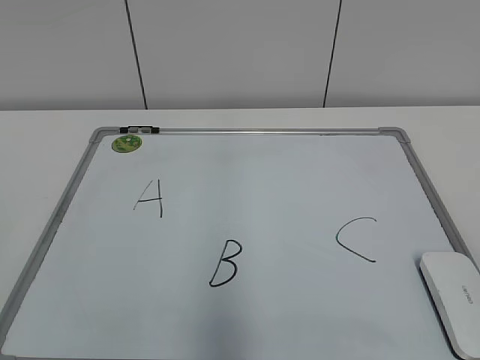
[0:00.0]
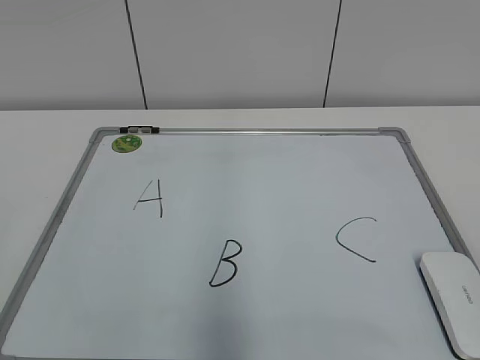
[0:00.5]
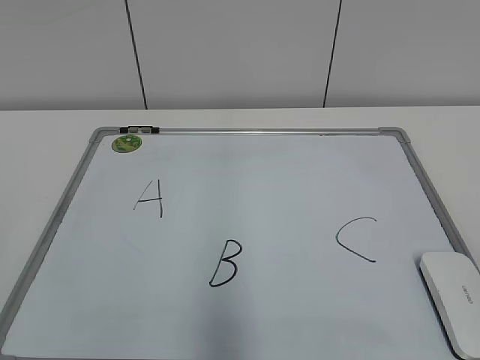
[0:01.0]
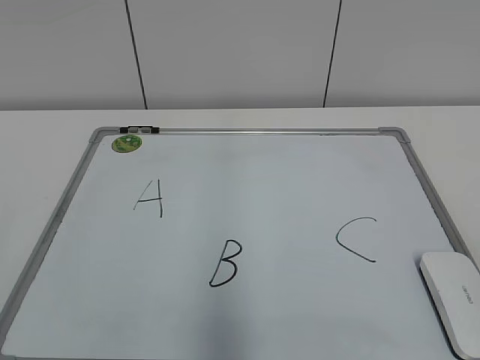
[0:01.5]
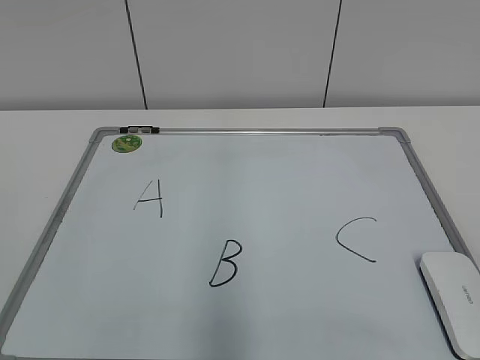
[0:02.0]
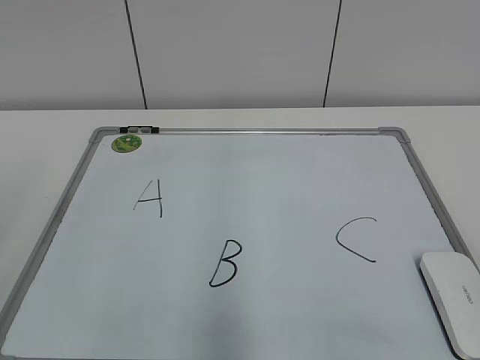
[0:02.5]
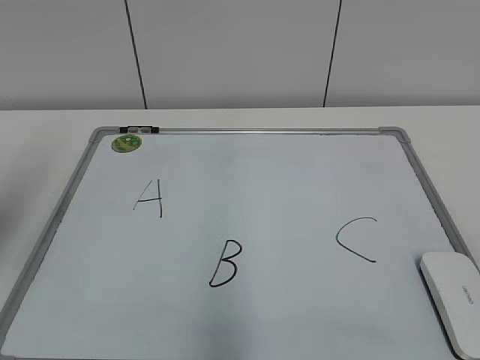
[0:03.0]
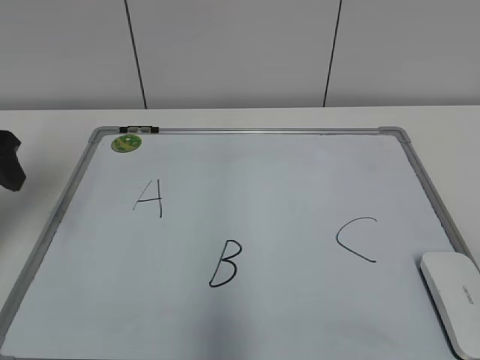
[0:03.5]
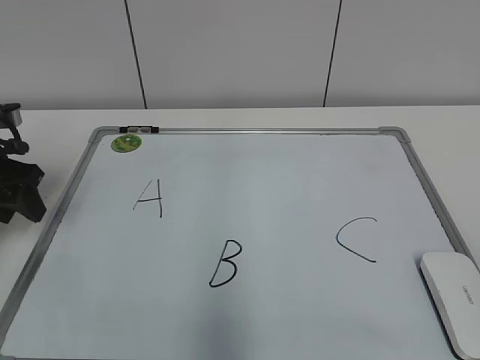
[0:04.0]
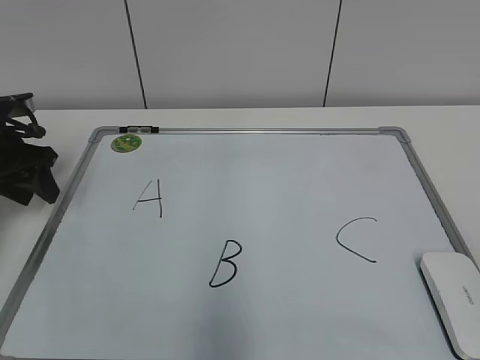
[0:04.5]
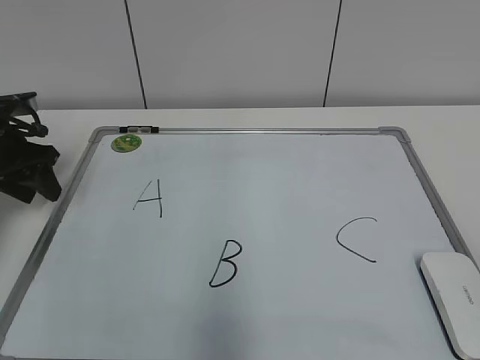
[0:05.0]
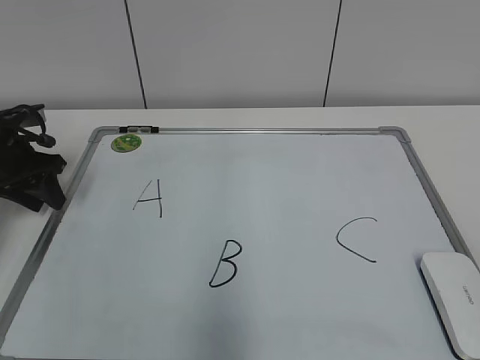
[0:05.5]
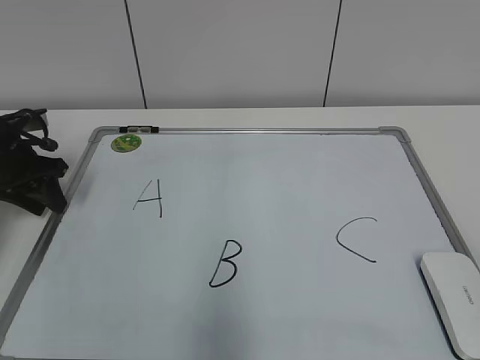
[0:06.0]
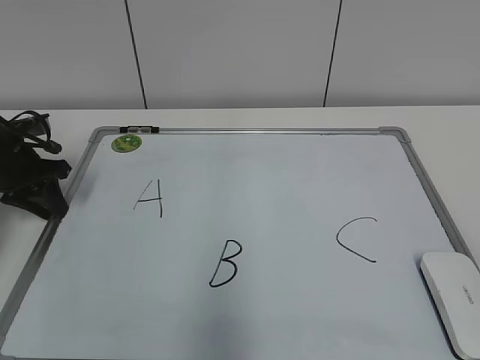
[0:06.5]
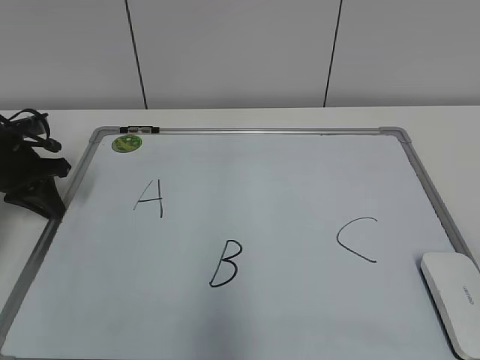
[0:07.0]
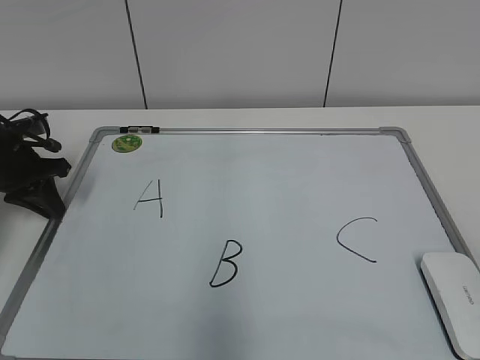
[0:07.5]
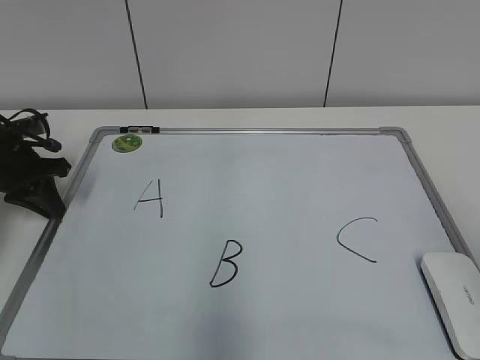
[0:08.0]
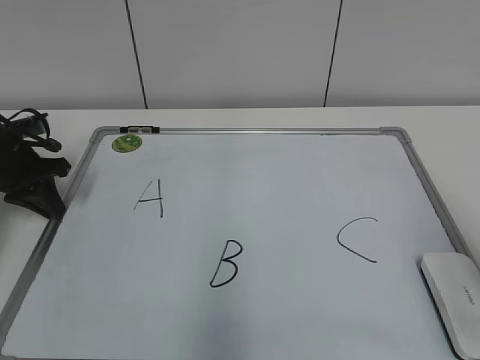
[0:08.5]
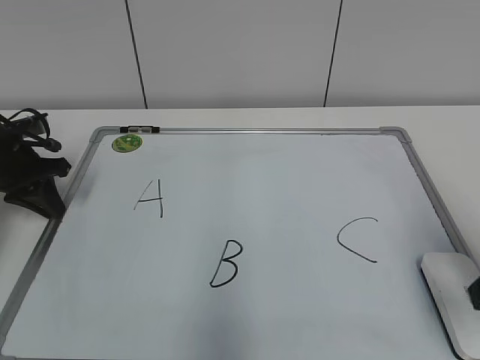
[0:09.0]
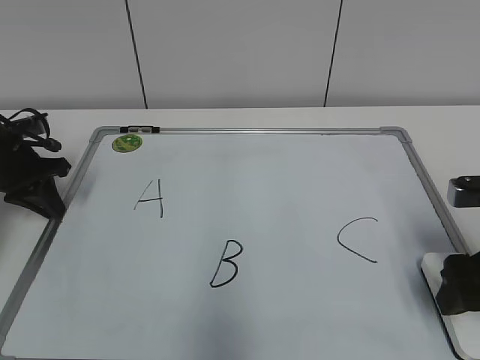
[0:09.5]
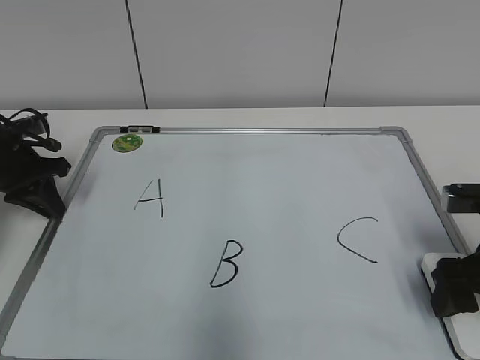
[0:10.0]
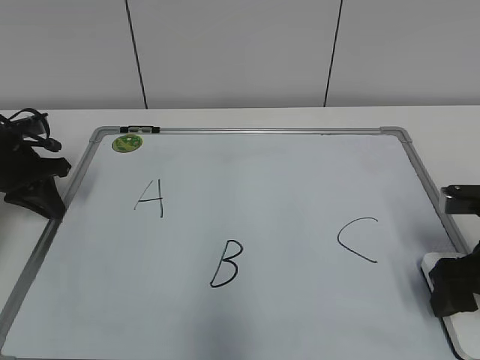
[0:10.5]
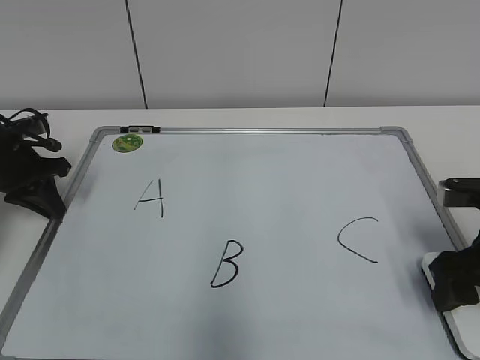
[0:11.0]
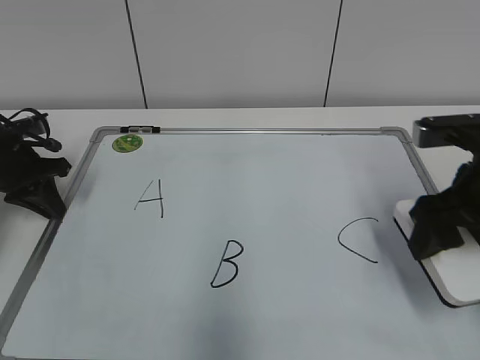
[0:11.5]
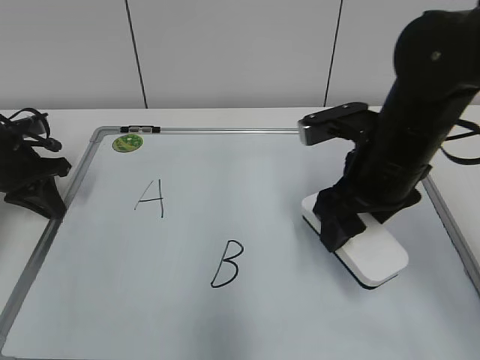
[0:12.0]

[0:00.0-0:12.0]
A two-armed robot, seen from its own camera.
Task of the whole recording: pick up the eraser on the blackboard and erase the letter "B".
Step, 0:00.0 to 0:07.0: Hold the drawing board steady with your left hand.
Step, 0:07.5 to 0:10.5: Grab the eraser with your right hand.
0:02.0 to 0:04.0: The left gripper moves forward, some 35 cm.
0:04.0 to 0:06.0: The left gripper heads forward, covering approximately 5 cm.
0:06.0 to 0:08.0: The left gripper closes up.
0:08.0 to 0:10.0: The right gripper is displaced forward and downward by about 25 cm.
0:10.0 to 0:12.0: The right gripper is displaced to the left, upward and forward by some 15 cm.

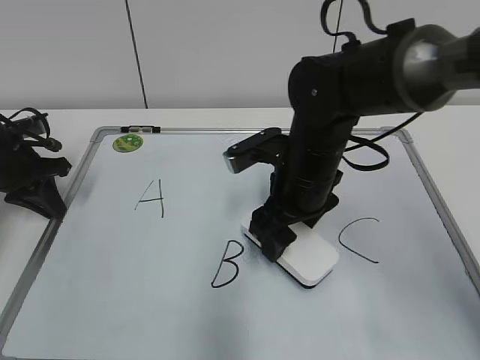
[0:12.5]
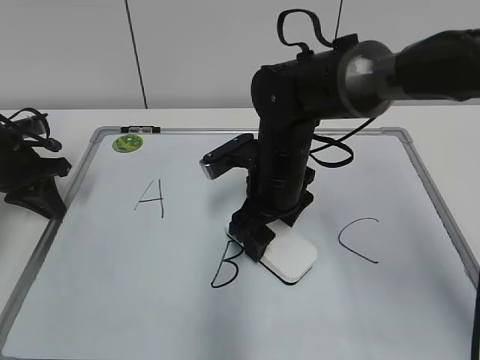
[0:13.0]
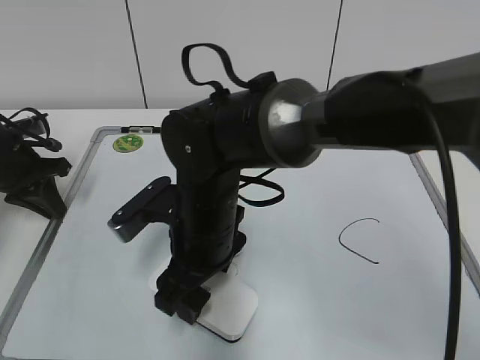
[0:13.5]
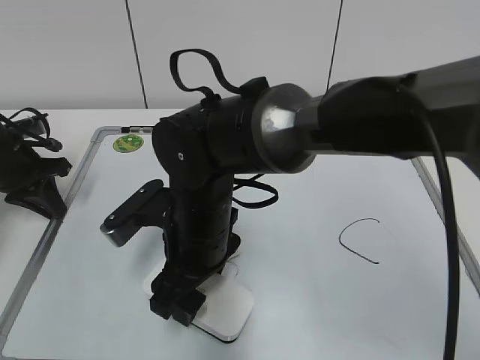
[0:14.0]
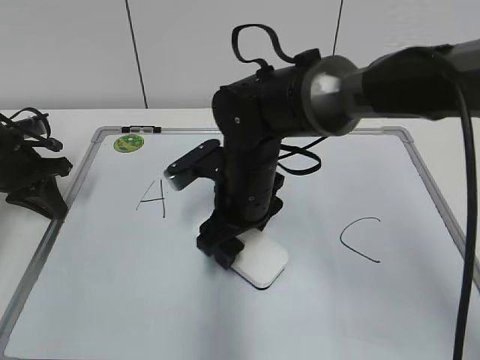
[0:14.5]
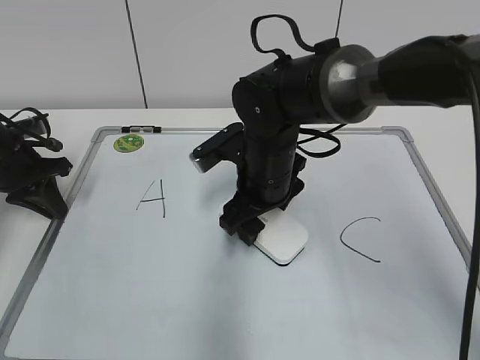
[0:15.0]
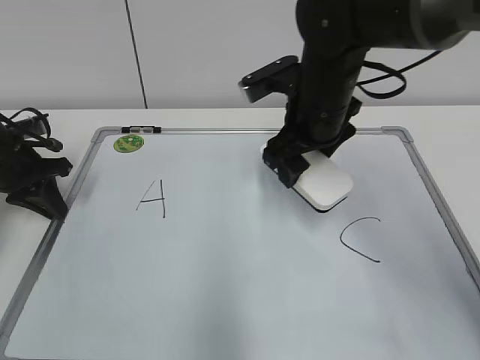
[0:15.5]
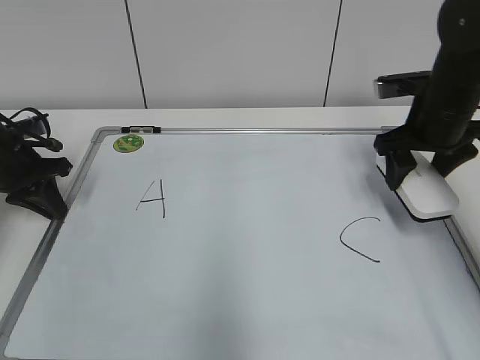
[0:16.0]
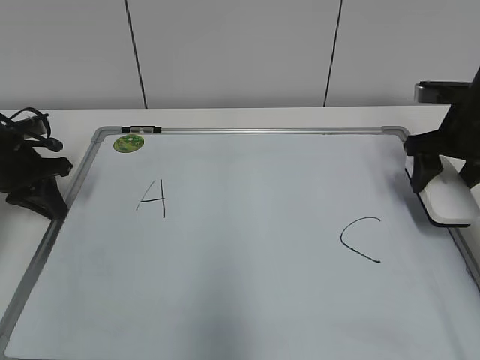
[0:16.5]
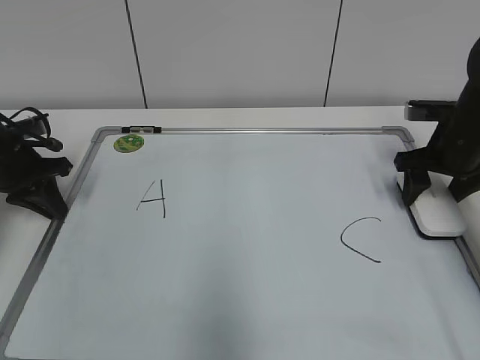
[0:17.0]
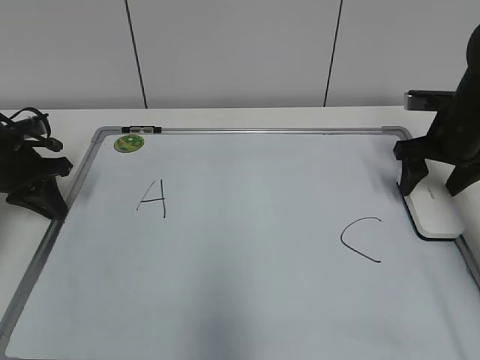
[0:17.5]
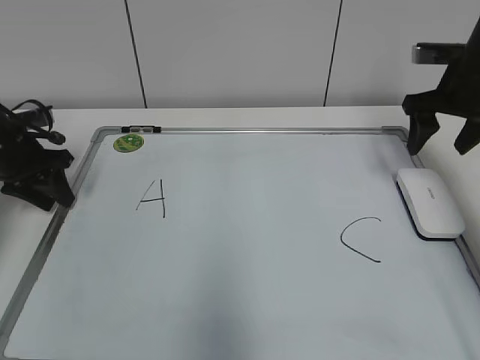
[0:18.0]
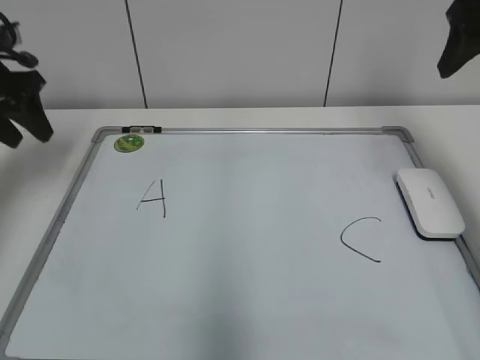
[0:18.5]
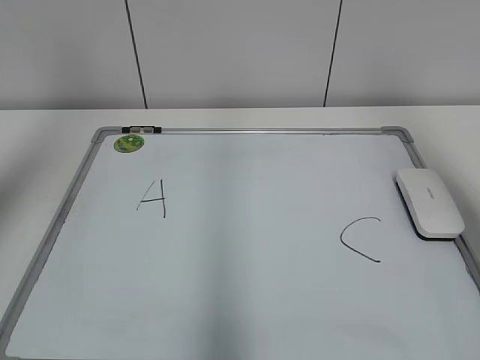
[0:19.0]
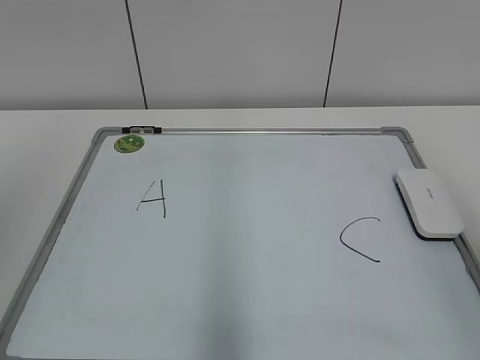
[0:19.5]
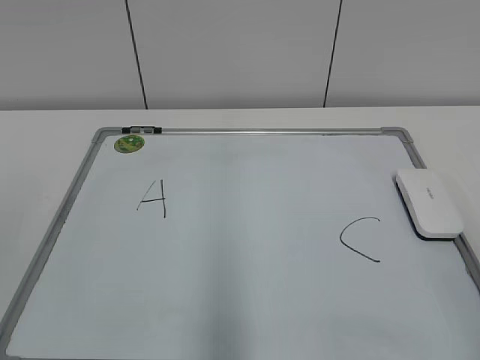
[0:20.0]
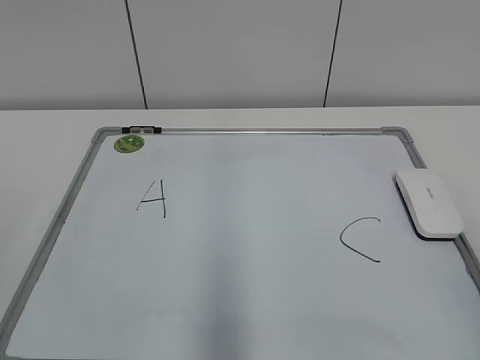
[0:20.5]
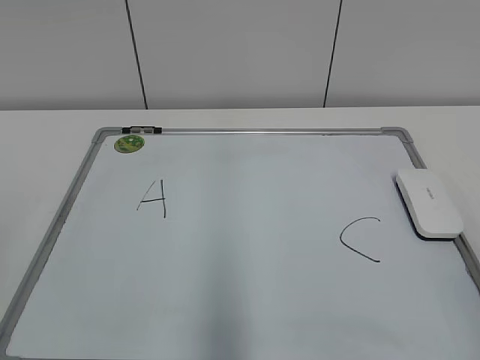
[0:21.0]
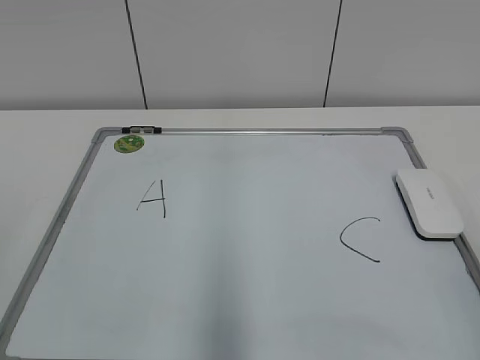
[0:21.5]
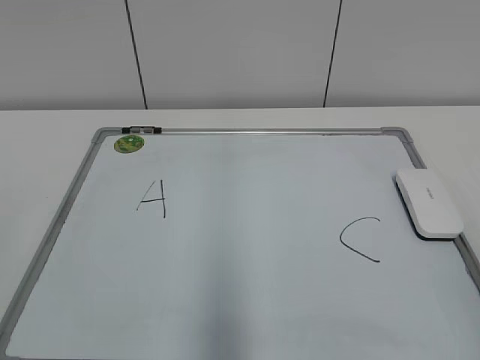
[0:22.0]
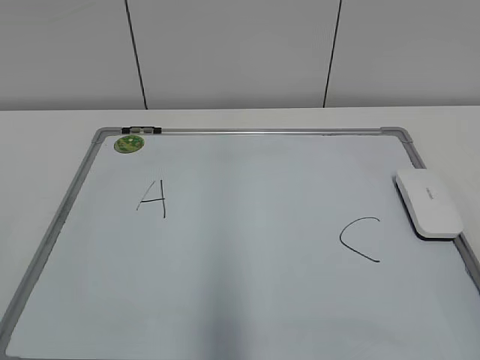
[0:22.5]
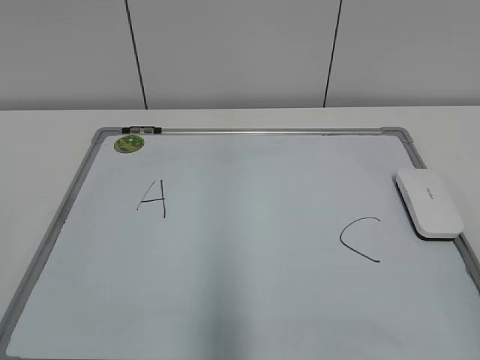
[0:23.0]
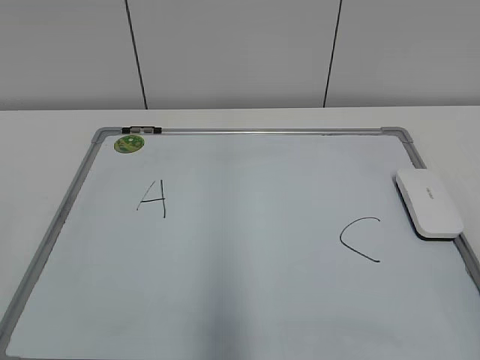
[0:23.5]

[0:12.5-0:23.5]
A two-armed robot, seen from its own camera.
Task of the whole recording: pick up the eraser on the blackboard and erase the letter "B".
Step, 0:12.5 to 0:14.5: Erase the letter B with your right hand.
Step, 0:15.5 to 0:17.0: Put down the eraser with your right hand.
0:12.5 to 0:14.5: The right gripper shifts about 5 cm to the left.
0:14.5 to 0:16.0: The right gripper is displaced to the right by roughly 25 cm.
0:16.0 to 0:18.0: The right gripper moves about 5 cm, while the left gripper opens up.
0:18.0 to 0:20.0: The right gripper travels backward by approximately 40 cm. The left gripper heads backward and upward, covering approximately 40 cm.

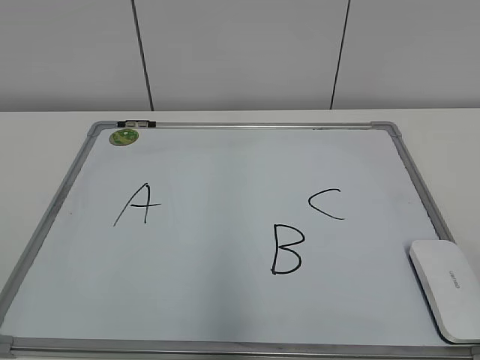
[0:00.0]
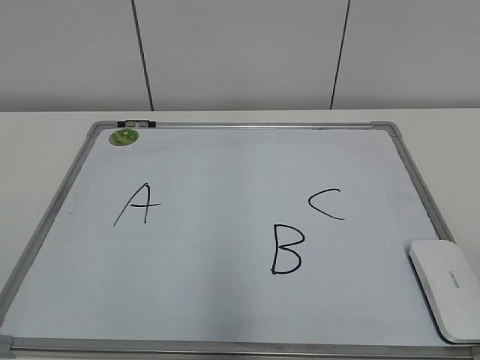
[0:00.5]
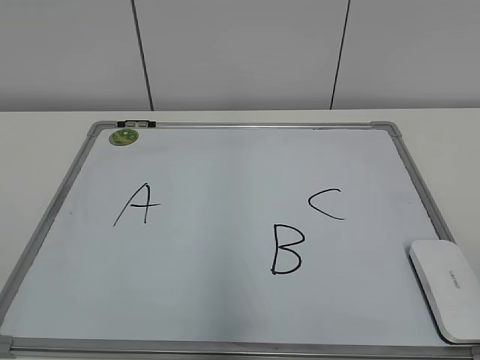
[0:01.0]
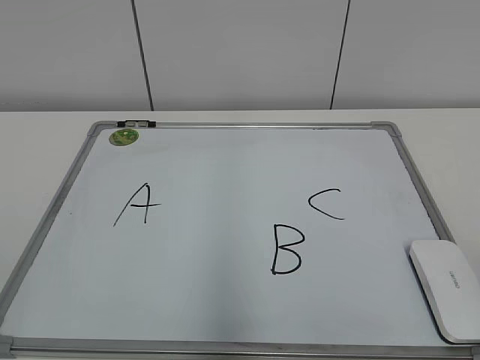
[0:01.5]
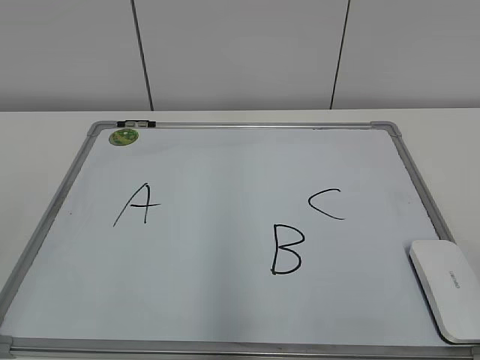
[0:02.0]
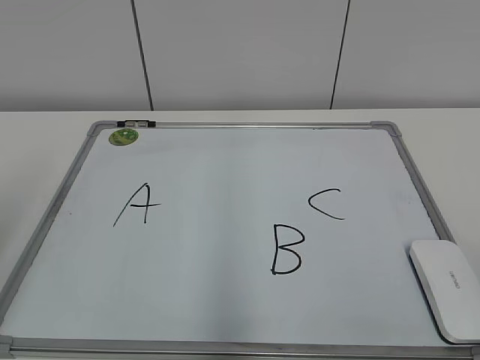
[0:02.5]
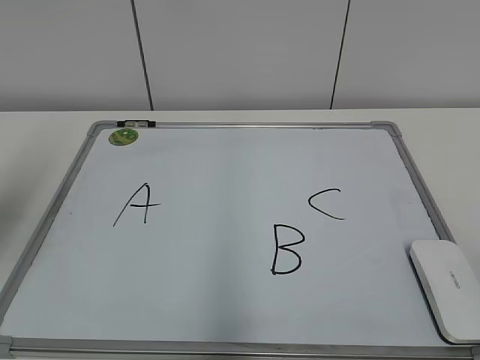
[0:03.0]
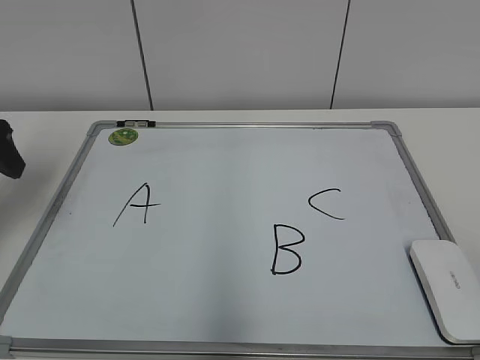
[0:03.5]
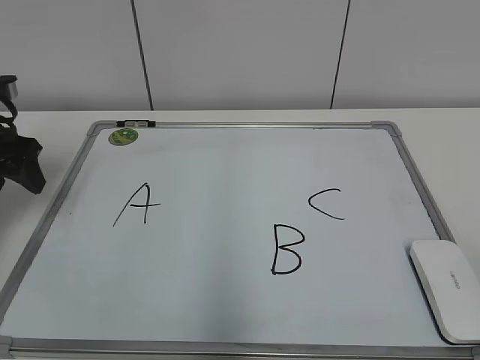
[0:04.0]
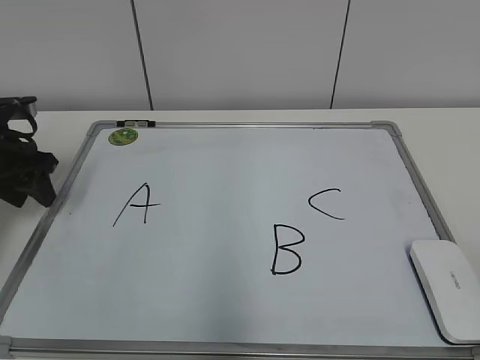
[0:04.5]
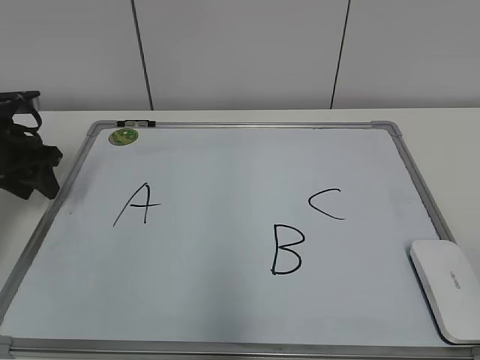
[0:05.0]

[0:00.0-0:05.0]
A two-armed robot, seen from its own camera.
Task of the whole recording: pick up the eraser on the blackboard and erase the letter "B".
0:02.5 to 0:05.0: The left gripper goes roughly 30 cm forward and downward, and closes.
